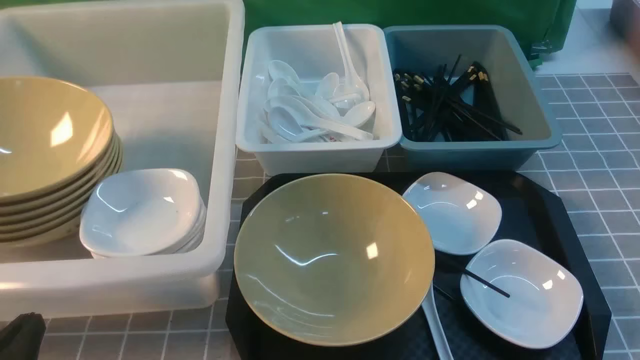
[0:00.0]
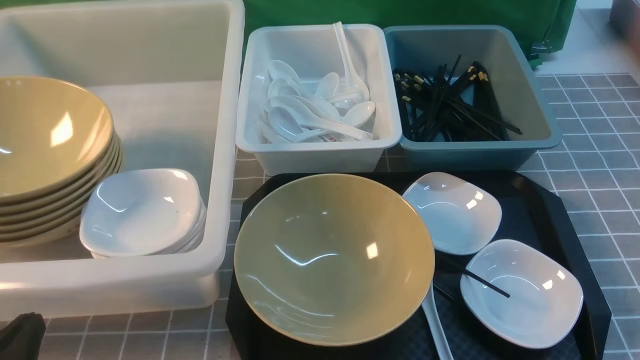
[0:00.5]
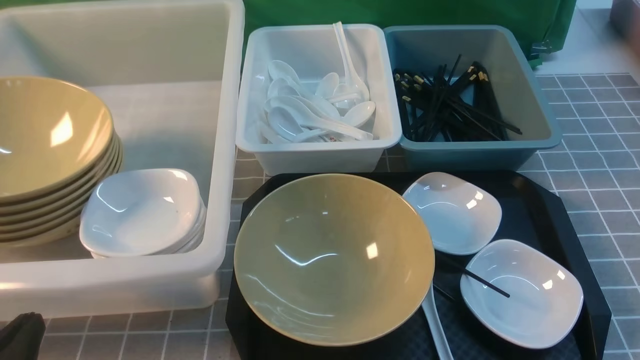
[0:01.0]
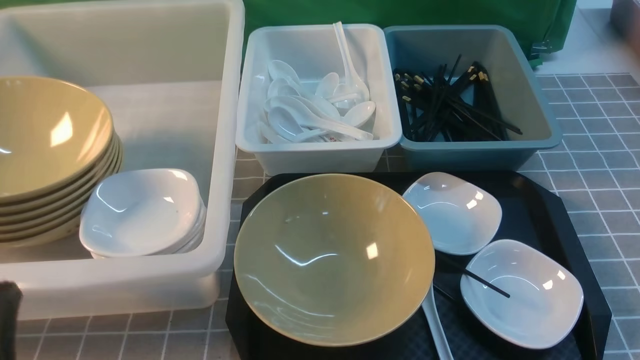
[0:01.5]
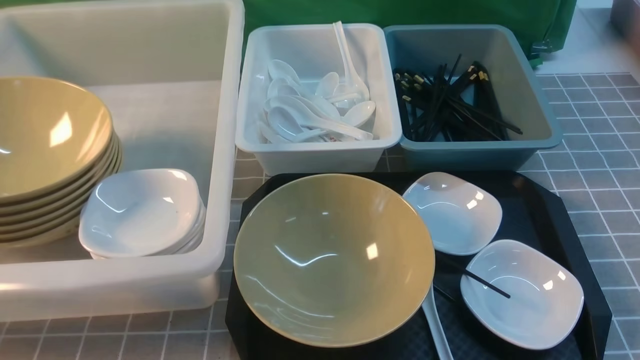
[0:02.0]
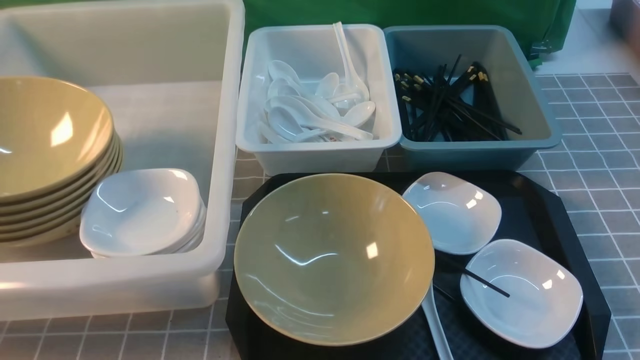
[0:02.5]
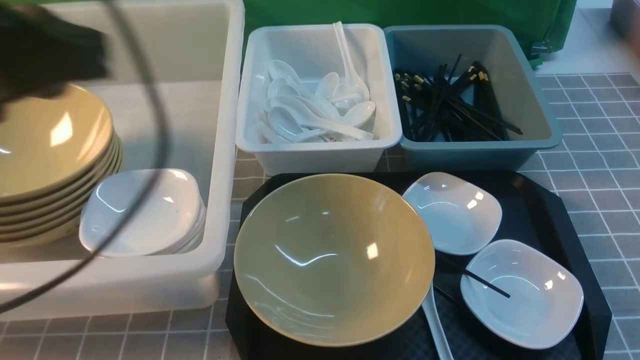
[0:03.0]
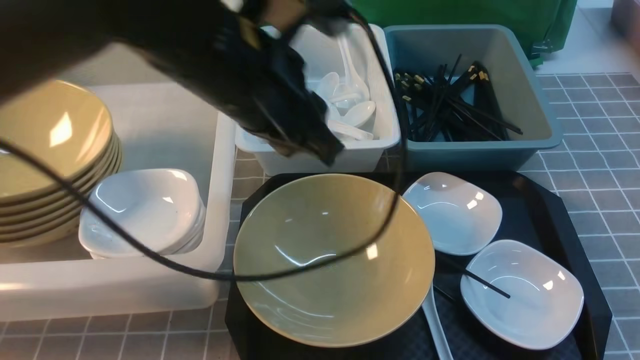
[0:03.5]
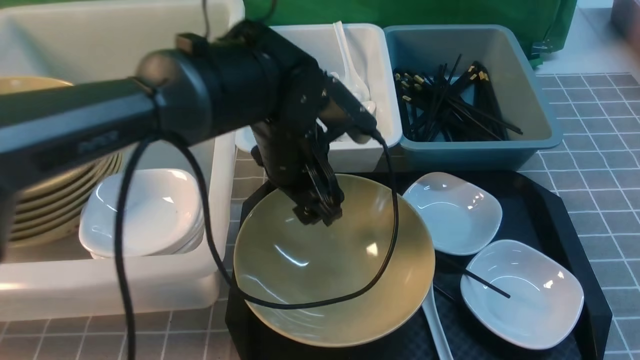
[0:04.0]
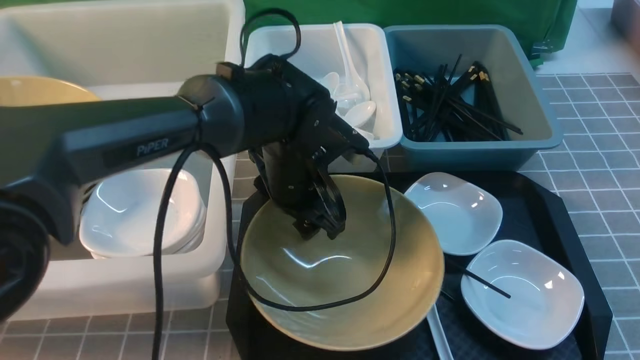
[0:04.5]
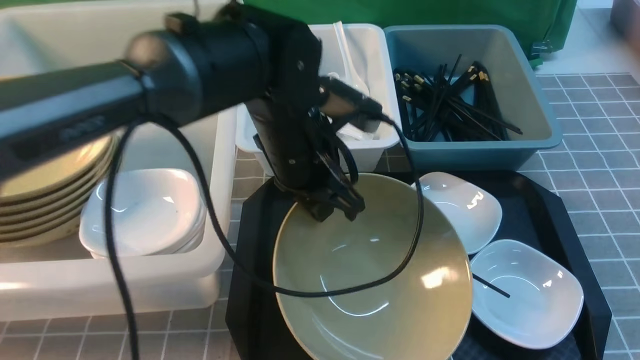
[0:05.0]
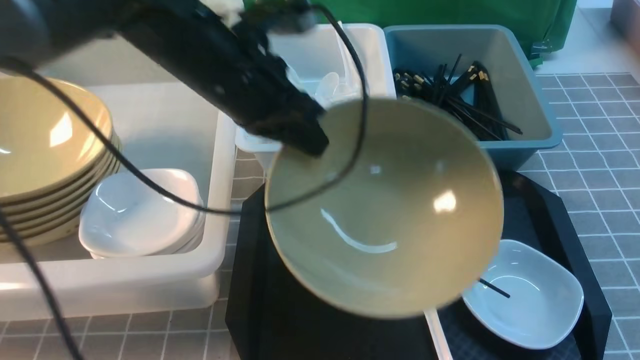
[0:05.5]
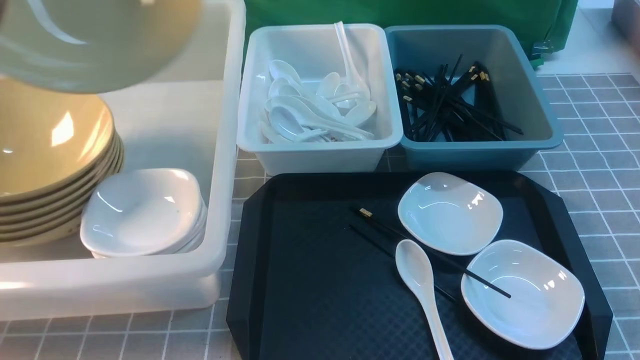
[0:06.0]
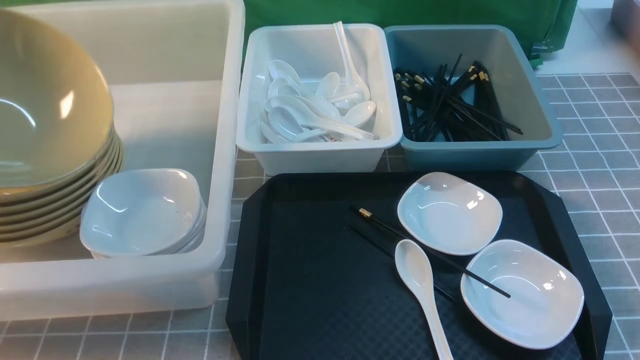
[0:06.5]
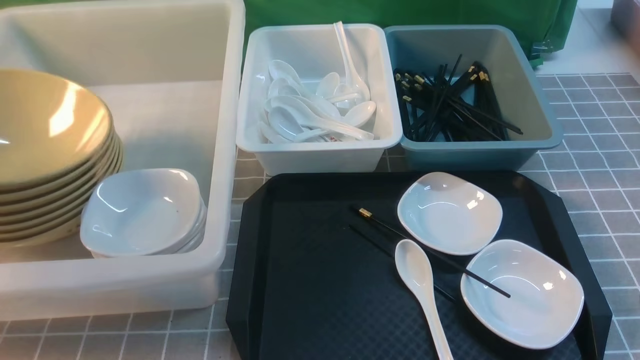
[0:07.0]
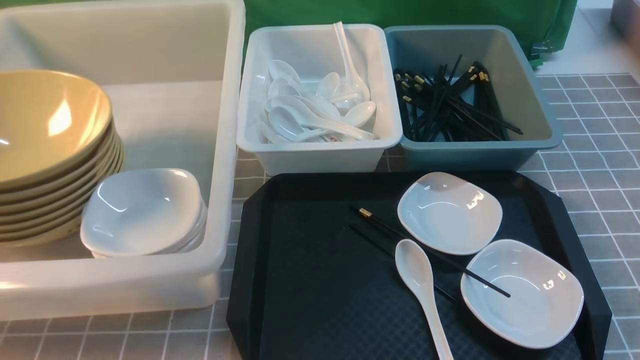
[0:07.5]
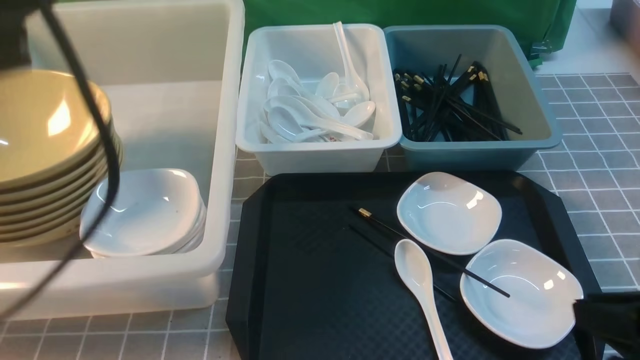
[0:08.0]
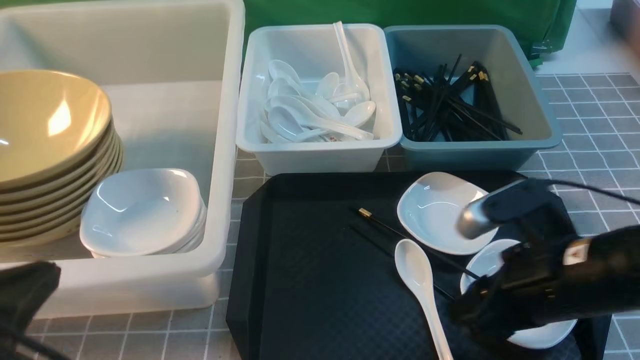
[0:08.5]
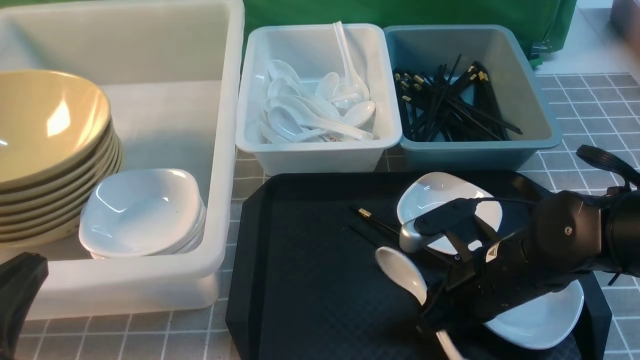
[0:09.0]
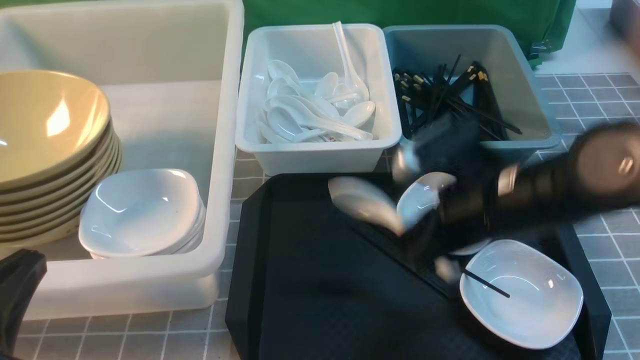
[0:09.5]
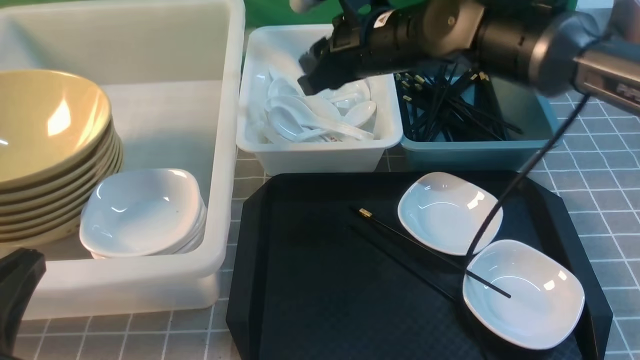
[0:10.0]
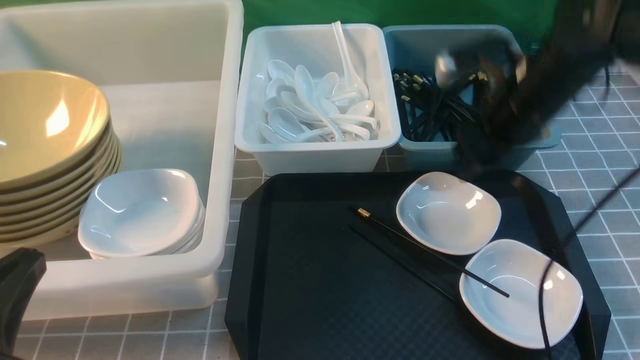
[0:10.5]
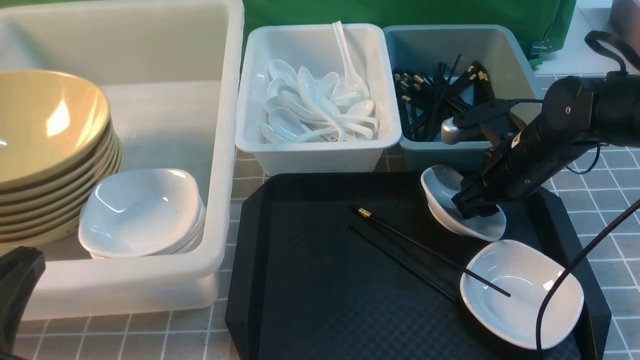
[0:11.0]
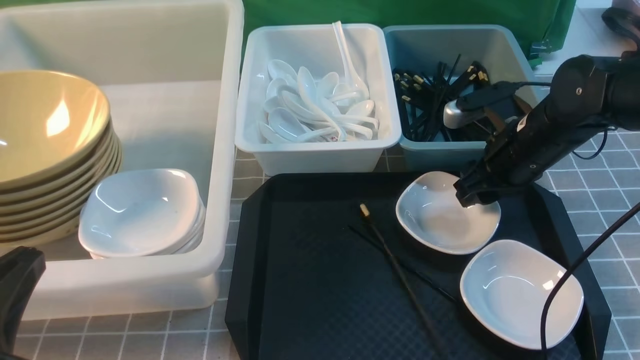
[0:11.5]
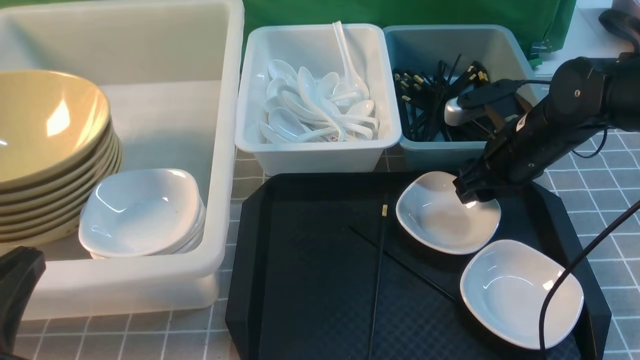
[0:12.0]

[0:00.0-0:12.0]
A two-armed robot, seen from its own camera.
Task of the whole recording: on grey table put chopsticks spoon bowls plates into blue grey white boxes.
Step, 0:00.0 to 0:05.0: use the left arm to grab the yellow noodle bowl on the left.
Step, 0:05.5 to 0:07.0: use the left arm to put the noodle bowl into the large storage box on the left.
Step, 0:07.5 to 0:09.0: use the right arm to grab the soup spoon in the middle.
Step, 0:09.5 to 0:10.0: use the right arm to put the soup spoon into the small storage box in the middle.
0:00.0 to 0:02.0: The left gripper shifts some 10 cm upward.
0:02.0 to 0:04.0: The right gripper travels upward and back again, about 10 cm each way, and closes up. Meanwhile the left gripper shifts some 35 cm forward and to the right, and opens its fingers.
0:04.0 to 0:06.0: The left gripper travels to the left and upward by about 35 cm, and closes up.
0:06.0 to 0:08.0: The left gripper moves backward and to the right, about 15 cm, and opens and closes again. Meanwhile the right gripper shifts approximately 5 cm forward.
0:08.0 to 0:10.0: The left gripper travels downward and backward by about 20 cm. Meanwhile the right gripper moves forward and to the left, roughly 35 cm.
0:10.0 to 0:12.0: The right gripper moves to the right and downward, about 20 cm, and opens its fingers.

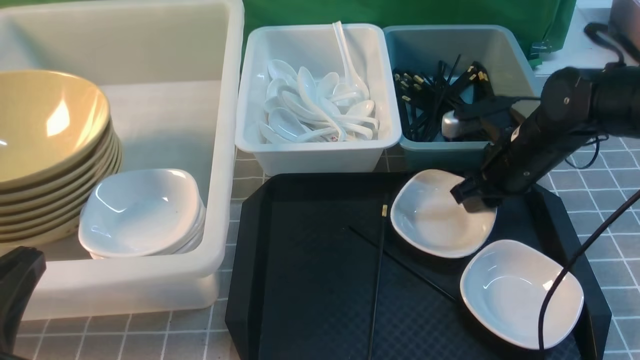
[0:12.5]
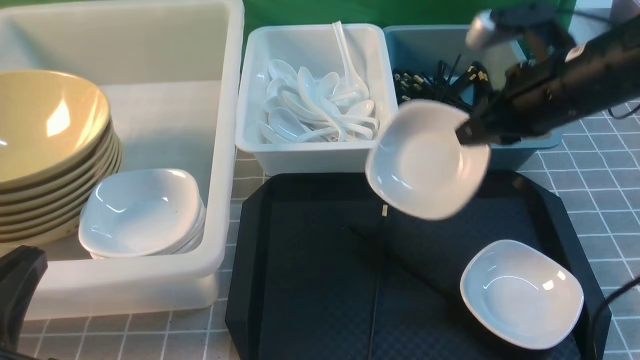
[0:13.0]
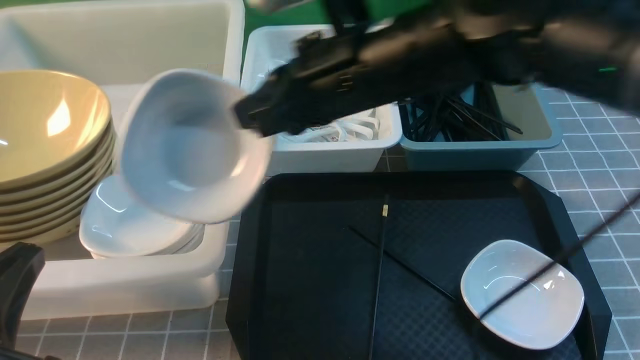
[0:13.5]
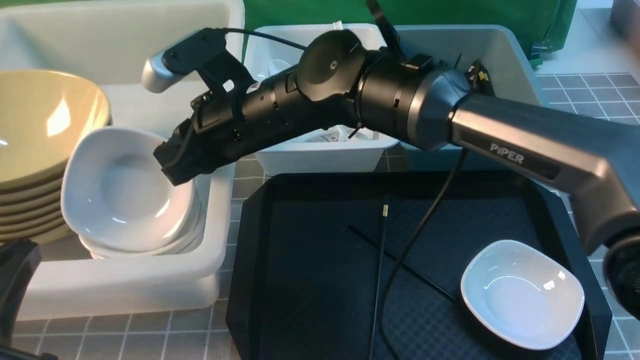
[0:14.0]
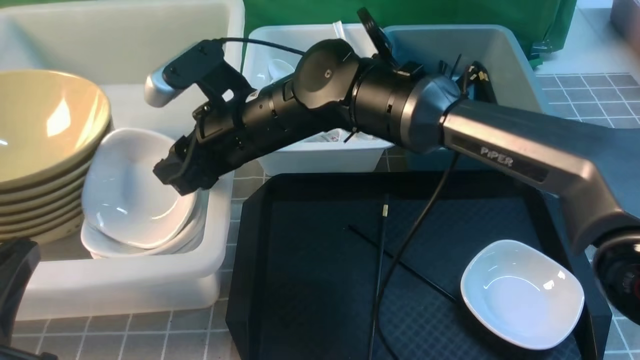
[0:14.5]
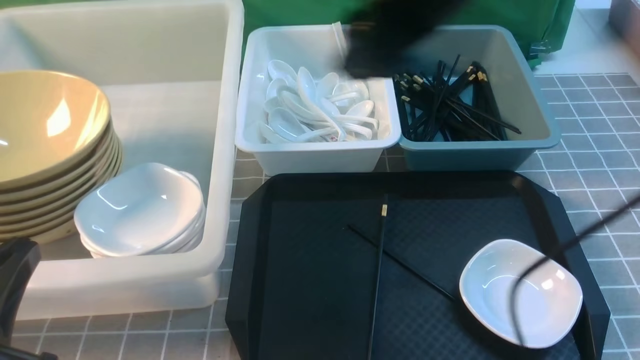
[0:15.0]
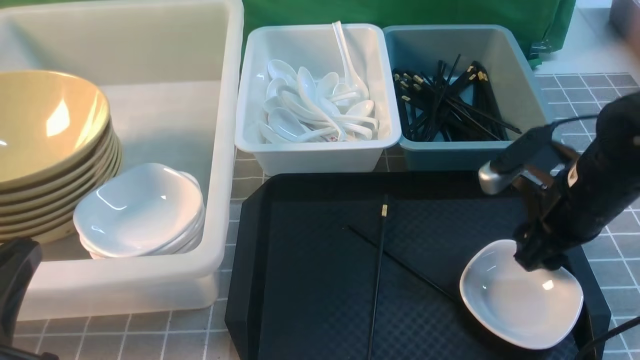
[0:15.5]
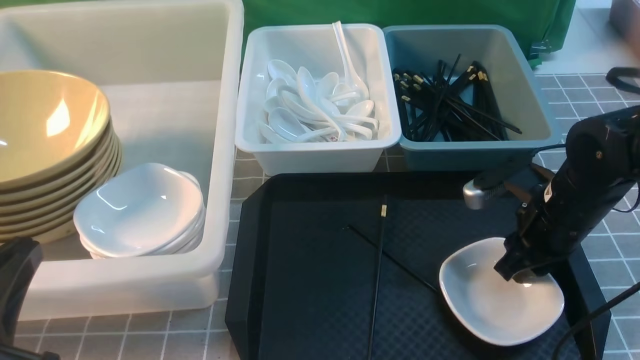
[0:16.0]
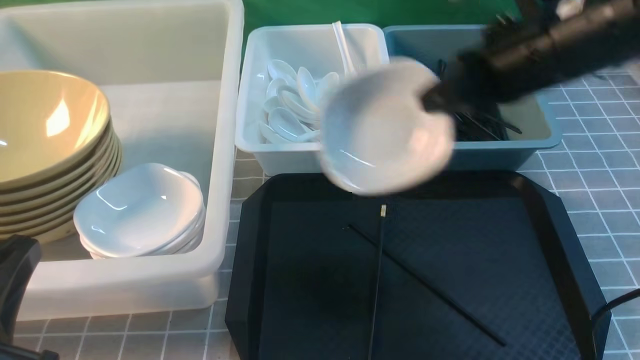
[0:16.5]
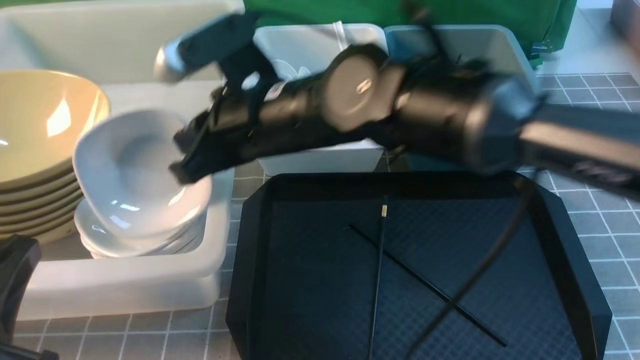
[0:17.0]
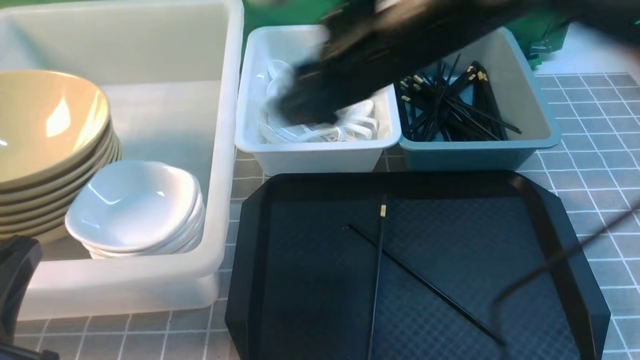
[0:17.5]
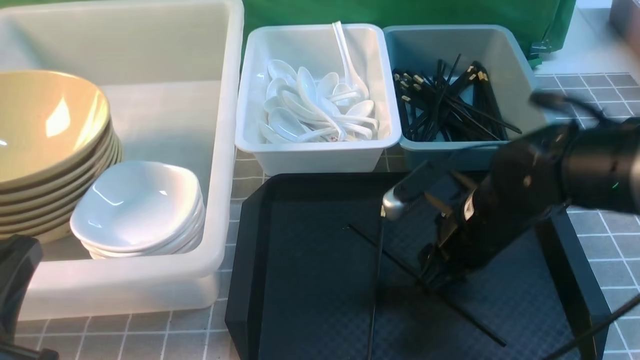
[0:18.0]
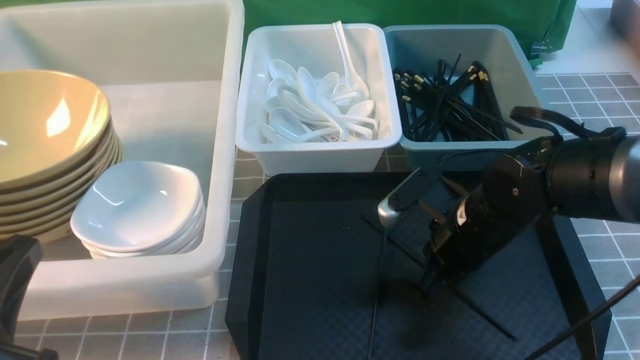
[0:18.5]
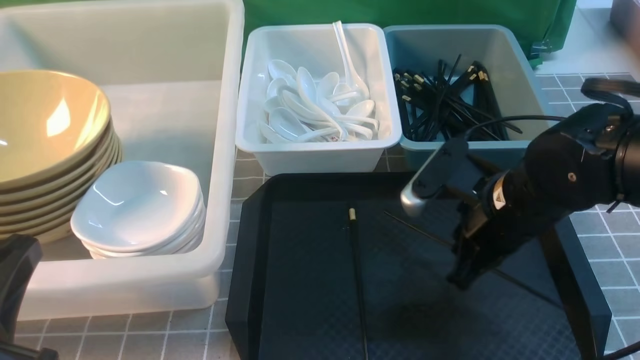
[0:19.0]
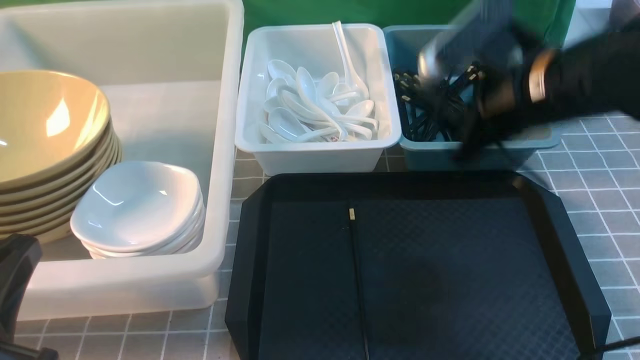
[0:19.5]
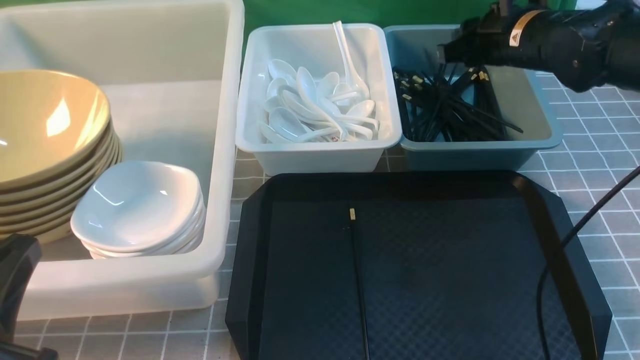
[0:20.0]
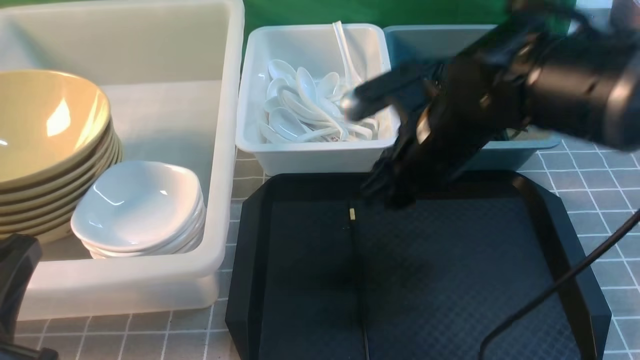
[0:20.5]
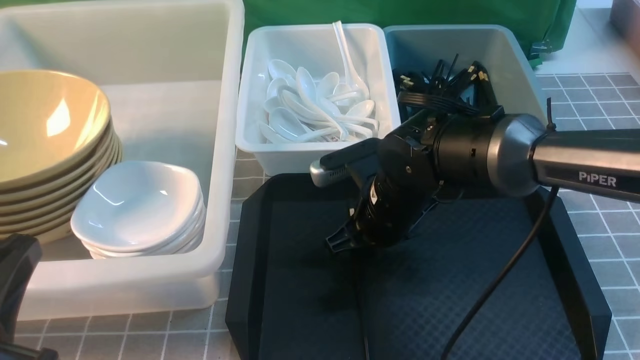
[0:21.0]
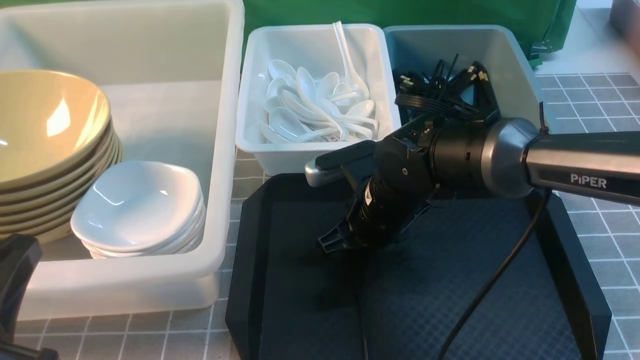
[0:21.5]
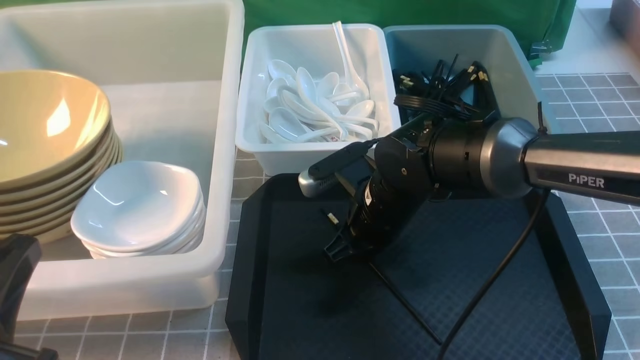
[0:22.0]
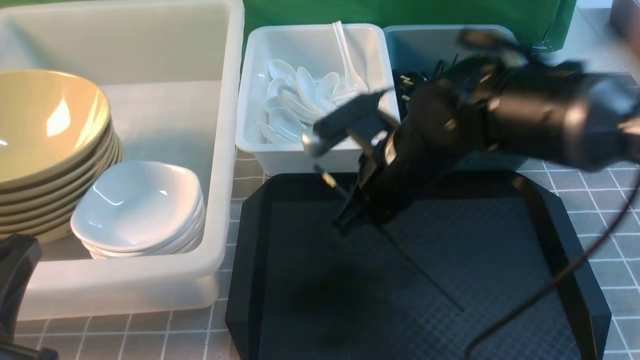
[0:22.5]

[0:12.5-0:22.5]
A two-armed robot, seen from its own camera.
Task of the whole recording: on grey table put chopsticks spoon bowls plates into blue grey white boxes.
Step, 0:13.0 to 0:14.5: use the right arm to put the plate into the large storage box on the left.
Step, 0:15.0 to 0:16.0: use the right arm to grab the plate.
Step, 0:16.5 to 0:17.5: use the right arm to put the plate into the large storage box on the left.
Step, 0:18.0 to 0:18.5: use the right arm to grab a chopstick.
Step, 0:19.0 to 0:20.0: use the right arm to put a chopstick into the small storage box on the right.
Step, 0:20.5 to 0:22.0: use the right arm to grab a chopstick.
0:12.5 to 0:14.5: The right gripper travels to the left by some 25 cm.
0:14.5 to 0:16.5: The right gripper shifts roughly 20 cm to the right, and closes.
0:16.5 to 0:18.5: The right gripper travels downward by some 15 cm, goes to the left and returns, some 15 cm each way, and opens, then closes again.
0:18.5 to 0:20.5: The right gripper is displaced upward by roughly 10 cm, goes forward and returns, some 15 cm each way, and opens up.
0:20.5 to 0:22.5: The right gripper reaches roughly 10 cm downward, then returns, and closes up.
